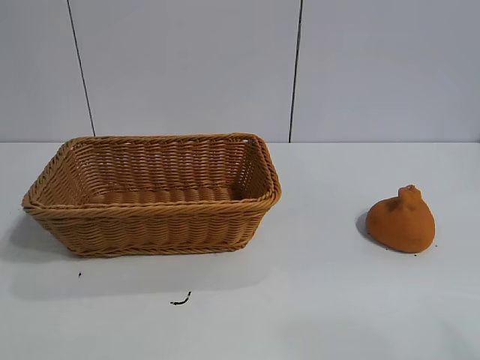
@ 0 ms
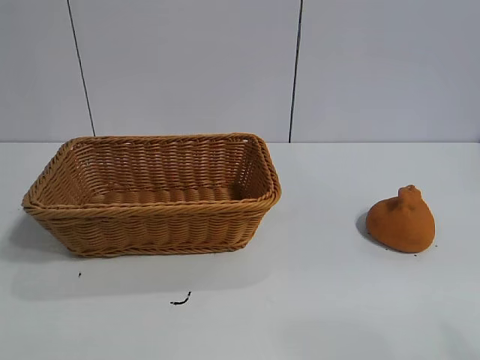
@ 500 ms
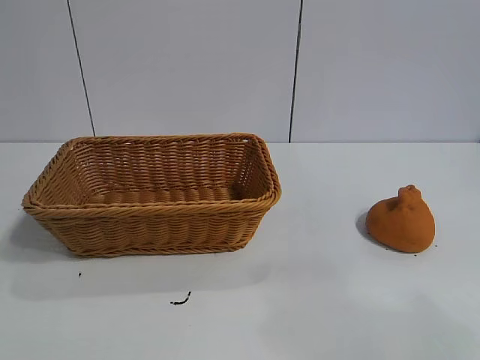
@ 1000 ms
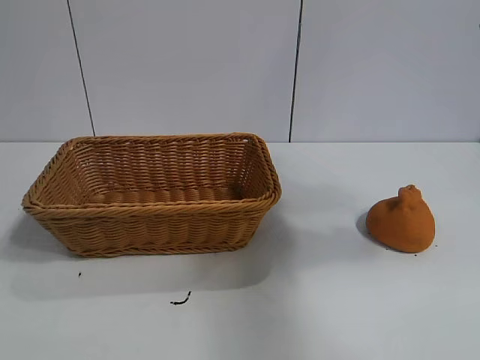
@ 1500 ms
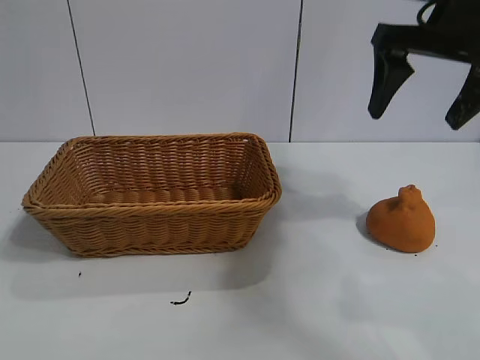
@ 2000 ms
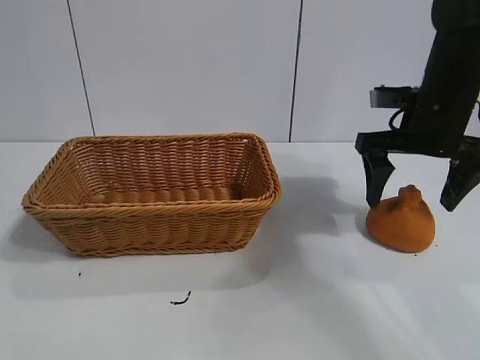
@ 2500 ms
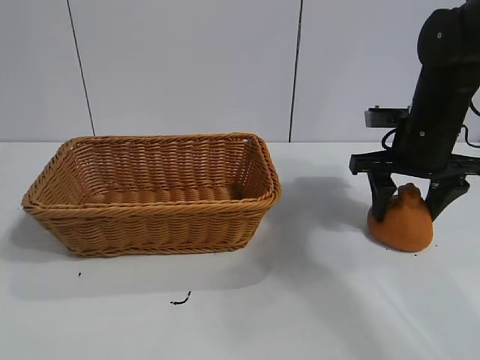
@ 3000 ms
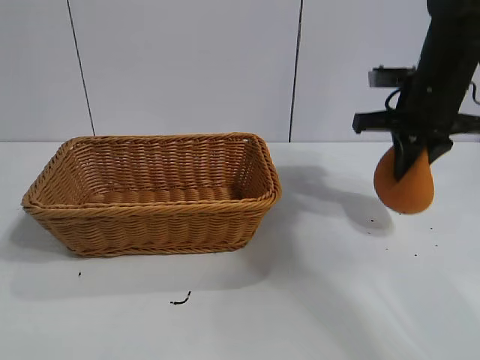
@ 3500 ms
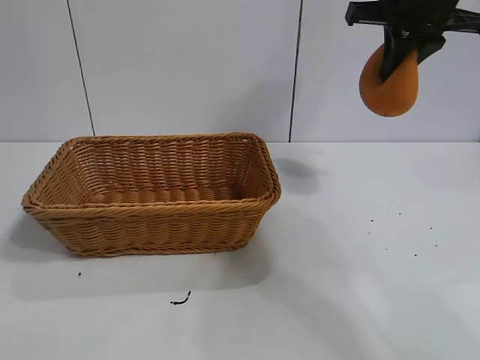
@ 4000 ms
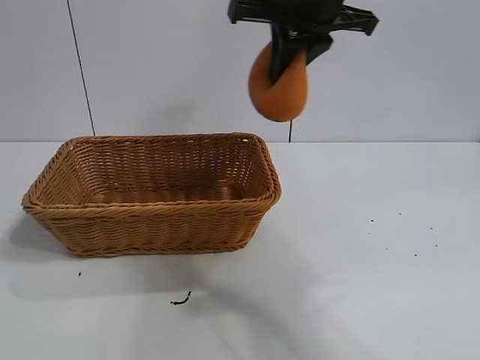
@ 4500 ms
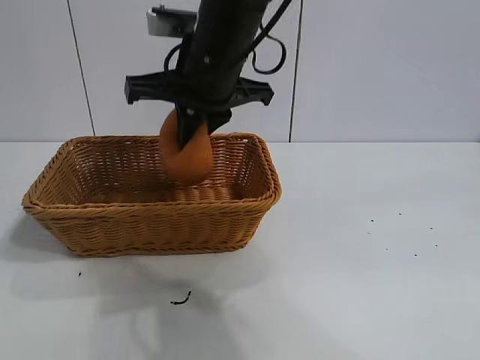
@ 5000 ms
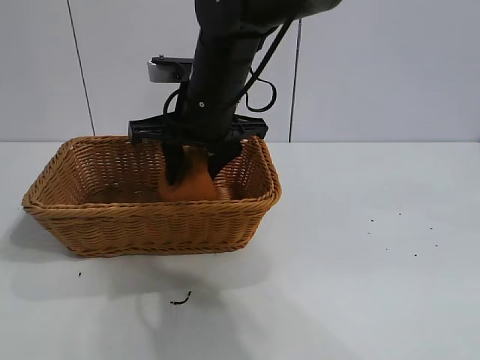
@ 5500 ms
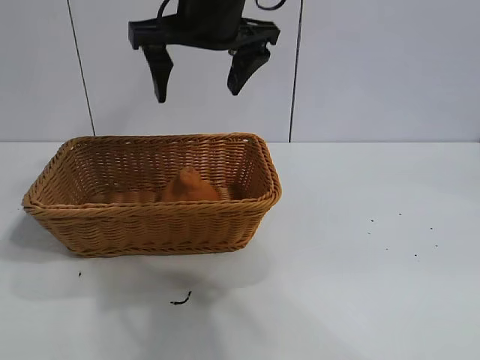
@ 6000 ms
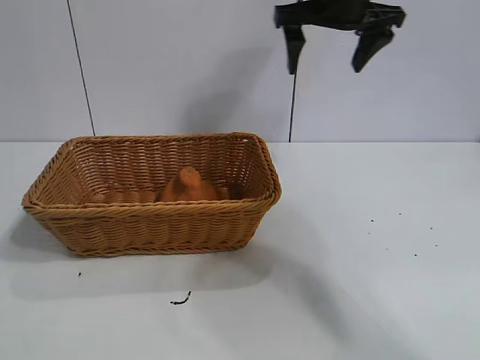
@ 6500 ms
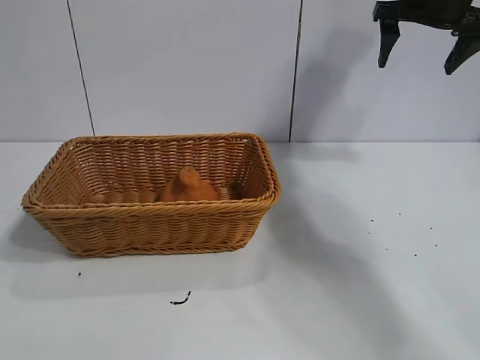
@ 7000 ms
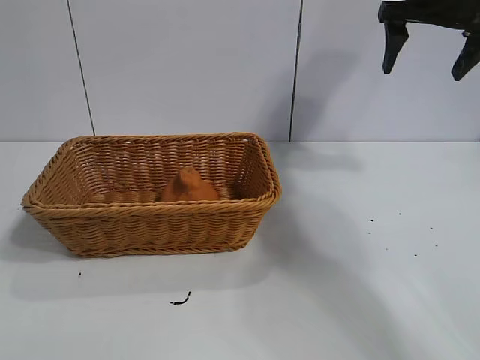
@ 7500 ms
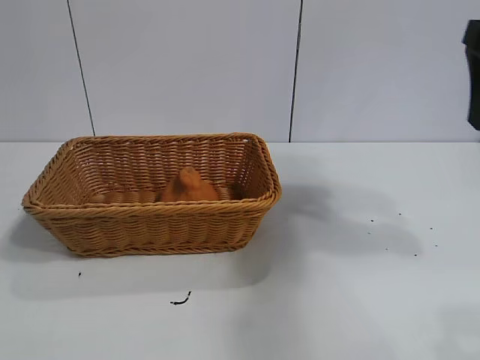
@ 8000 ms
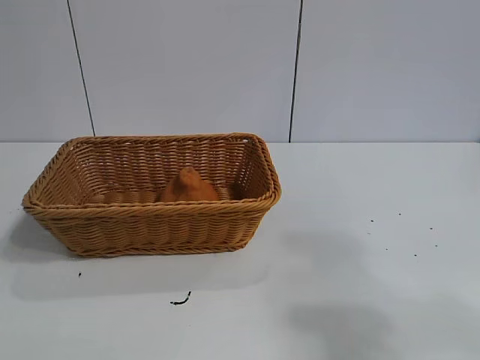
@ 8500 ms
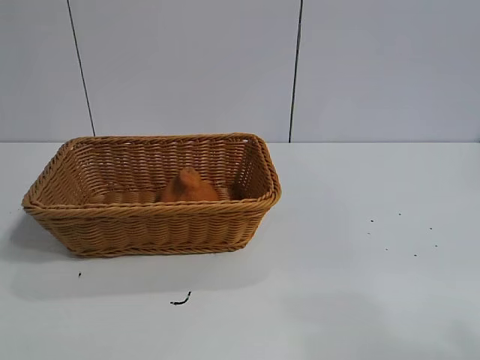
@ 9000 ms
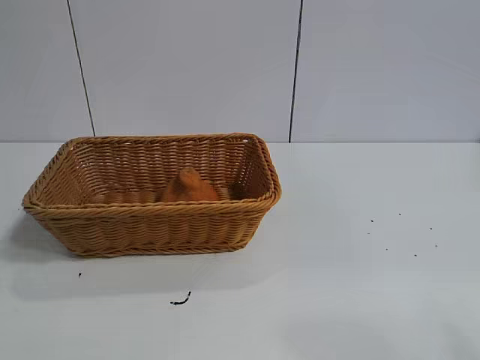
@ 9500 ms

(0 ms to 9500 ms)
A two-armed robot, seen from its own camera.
Task of the whole recording: pick up the orange and put it into the basket.
Step, 1000 ms - 3000 ms: Grasp the orange with right gripper.
Step, 3500 ms - 5500 ms: Place the orange in the basket with right gripper.

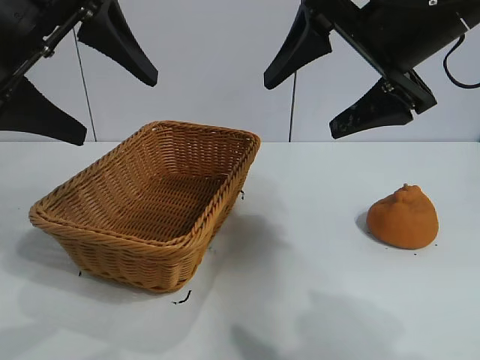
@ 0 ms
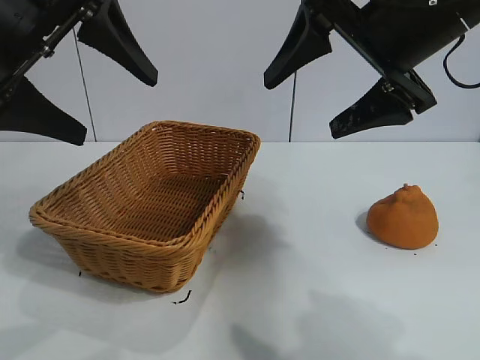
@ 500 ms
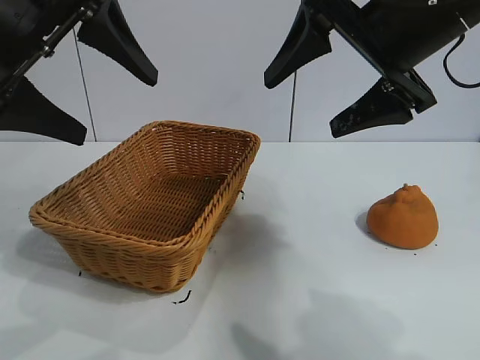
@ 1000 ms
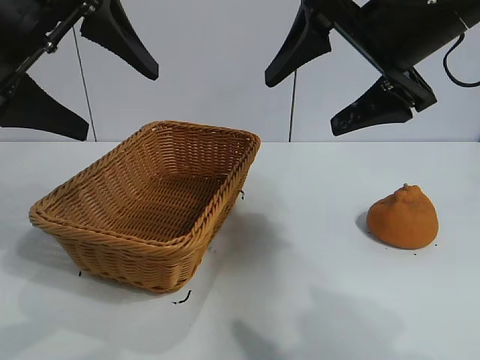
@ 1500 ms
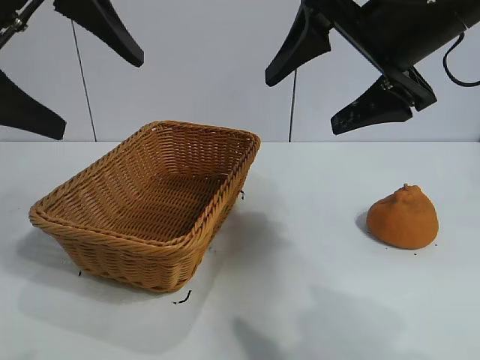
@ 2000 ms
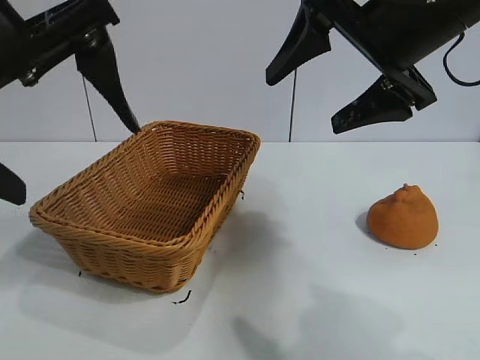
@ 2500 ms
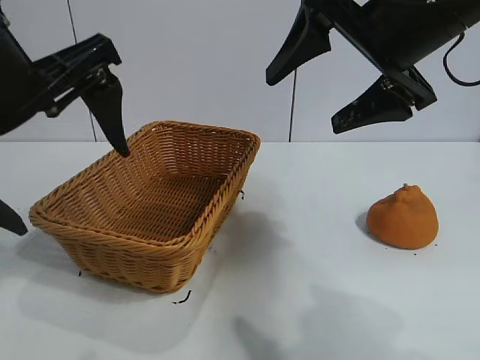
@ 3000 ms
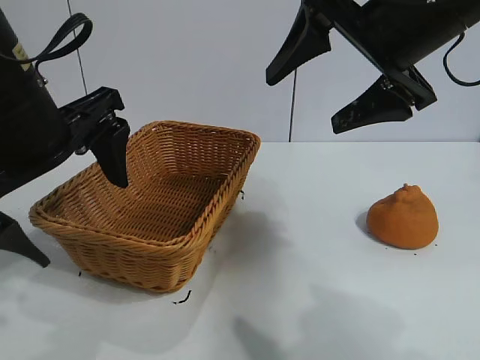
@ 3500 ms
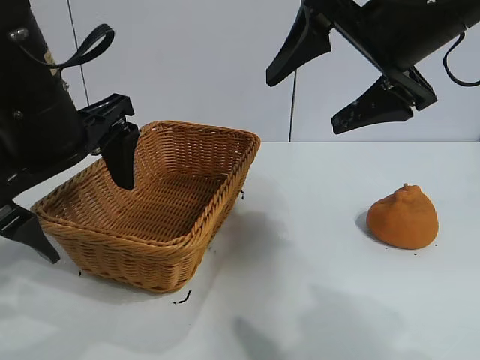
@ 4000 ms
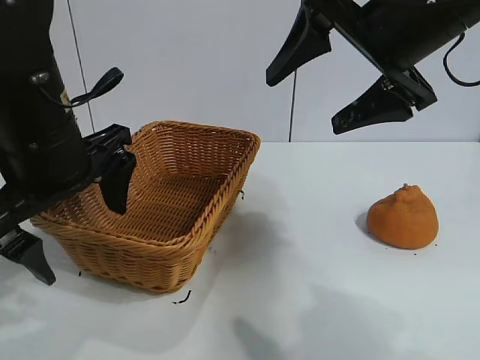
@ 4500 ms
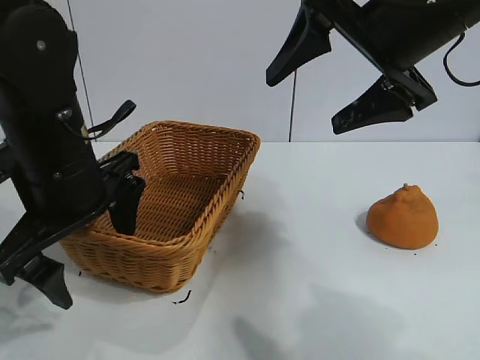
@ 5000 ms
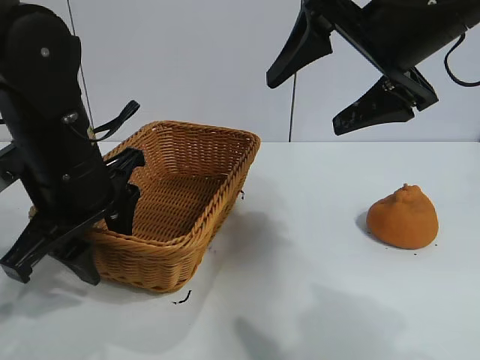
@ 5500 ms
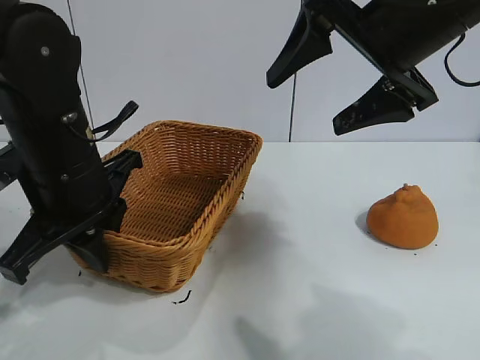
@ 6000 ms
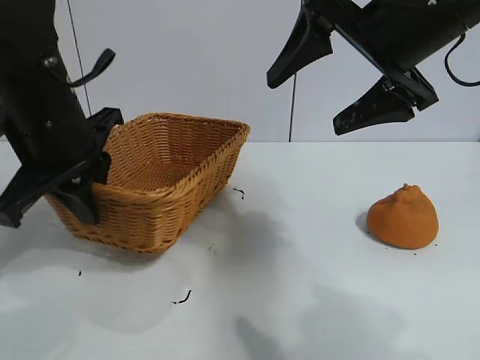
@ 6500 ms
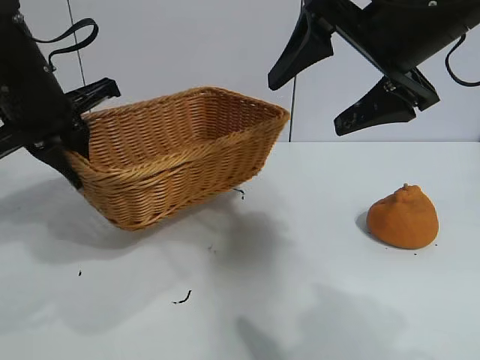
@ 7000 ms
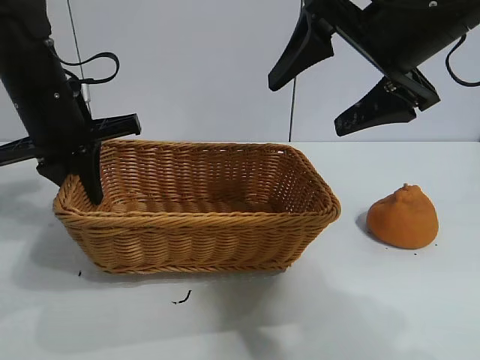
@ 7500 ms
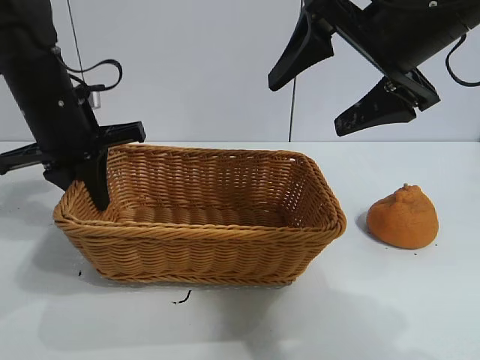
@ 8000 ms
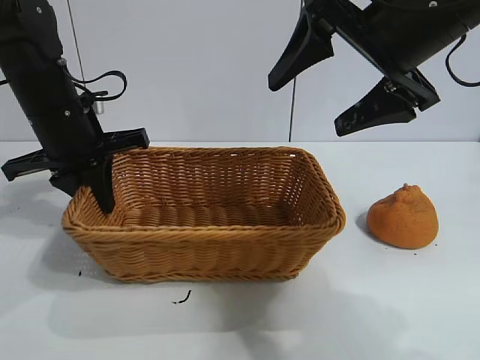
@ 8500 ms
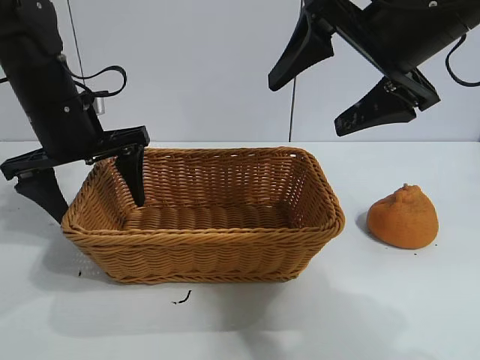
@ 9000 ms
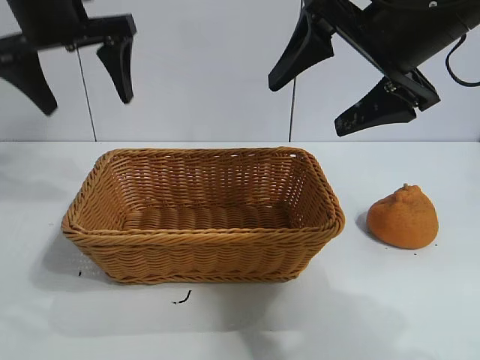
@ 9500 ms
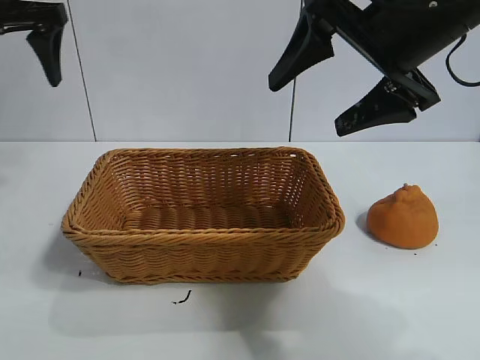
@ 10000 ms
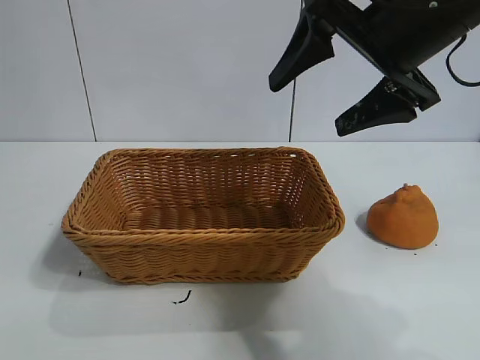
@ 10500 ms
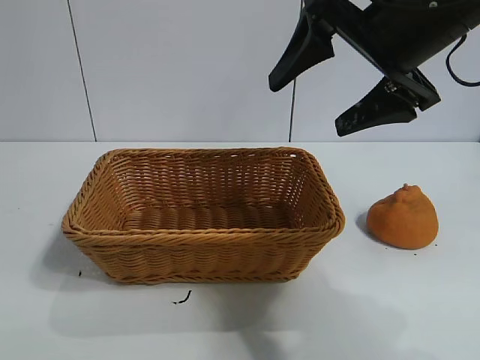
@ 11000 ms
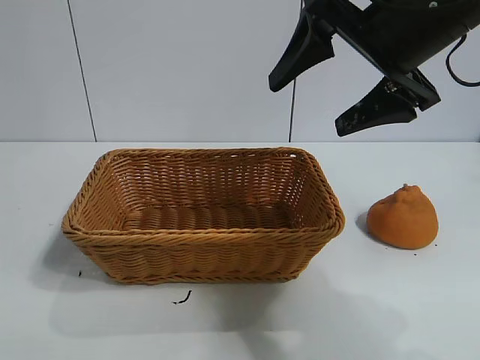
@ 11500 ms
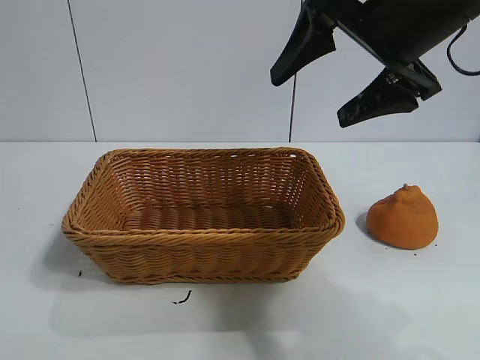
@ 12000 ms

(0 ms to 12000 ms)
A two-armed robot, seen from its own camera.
Task of the whole recording: pick up the orange and put it into the basket.
Step, 2000 ms - 5500 ms: Grasp the basket with left gripper.
Step, 6000 ms - 8500 ms: Place the basket in the center of view with left gripper.

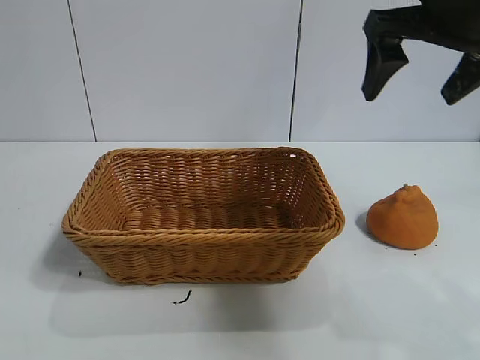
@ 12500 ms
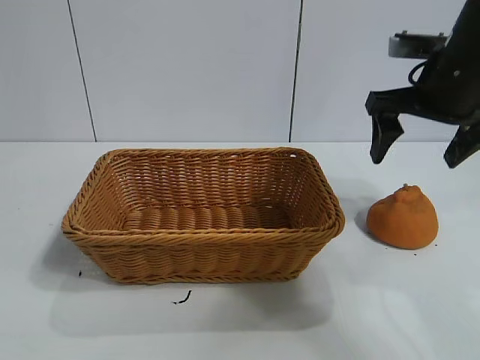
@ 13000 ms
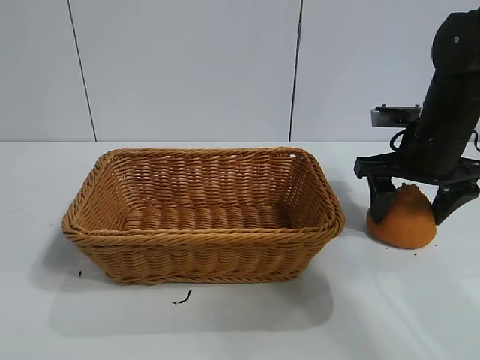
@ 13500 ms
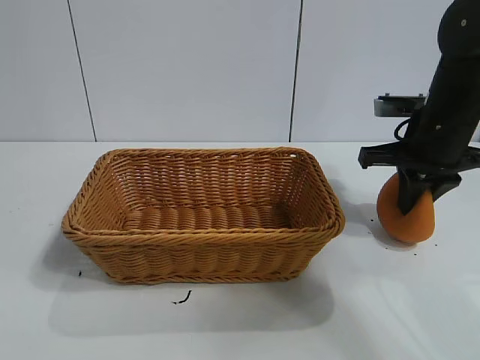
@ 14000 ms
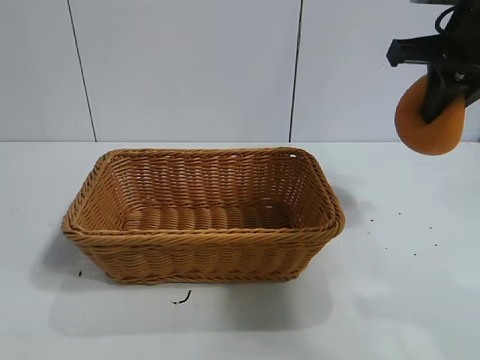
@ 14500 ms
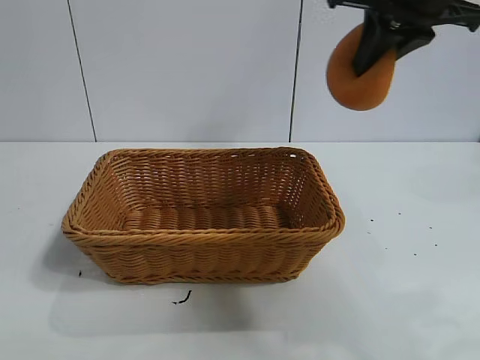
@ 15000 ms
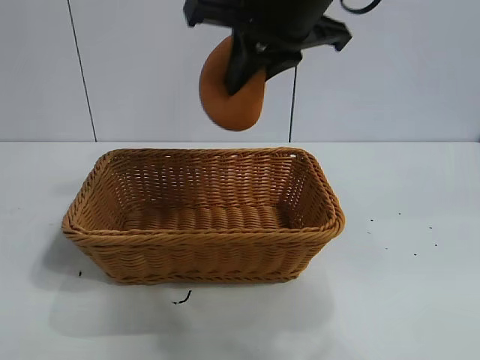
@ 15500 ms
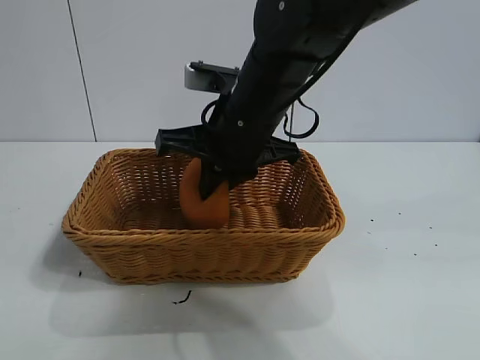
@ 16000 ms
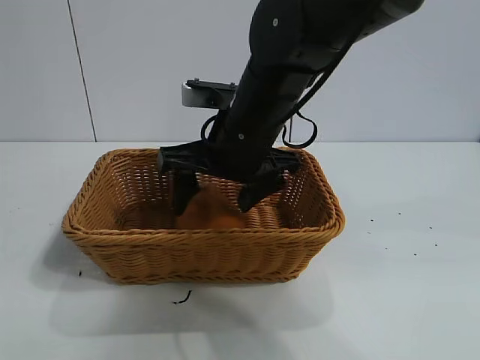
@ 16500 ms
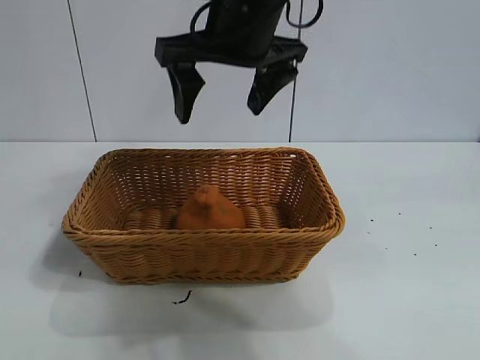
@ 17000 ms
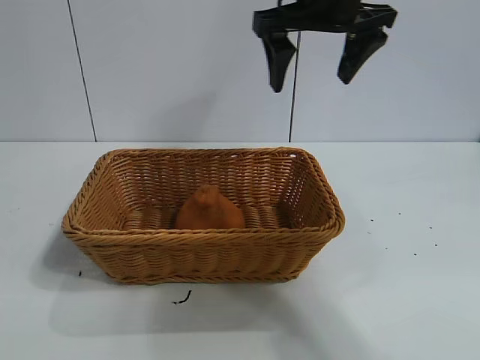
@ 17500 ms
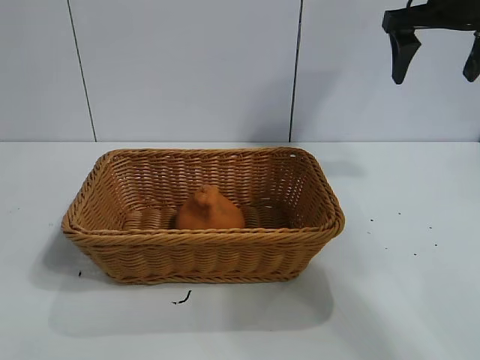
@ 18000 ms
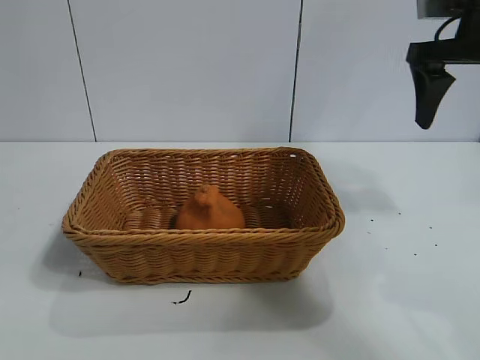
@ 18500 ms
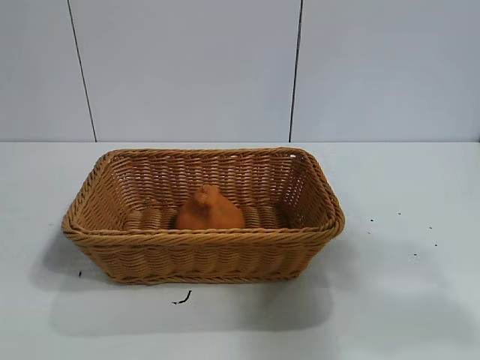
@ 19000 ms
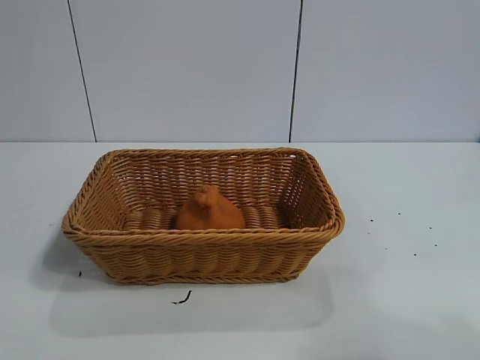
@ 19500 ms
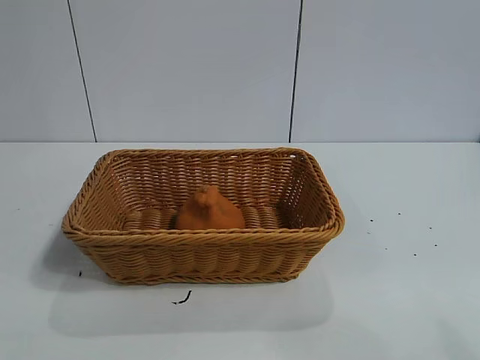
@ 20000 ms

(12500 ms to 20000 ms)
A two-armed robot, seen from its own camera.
Task of the whole recording: pick up the orange and put it into the basket.
Step, 14000 ms - 16500 ms: Place the orange in the basket with right gripper.
